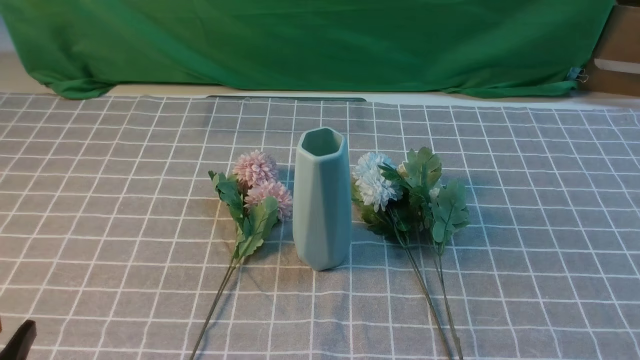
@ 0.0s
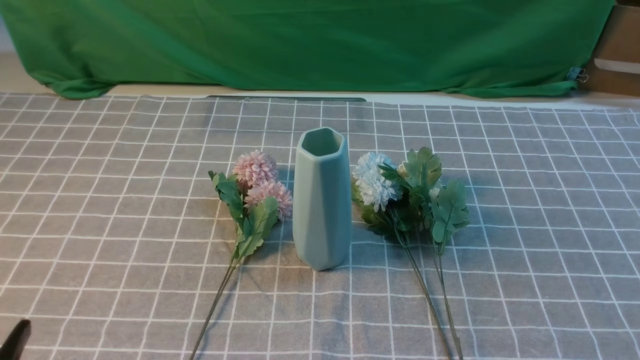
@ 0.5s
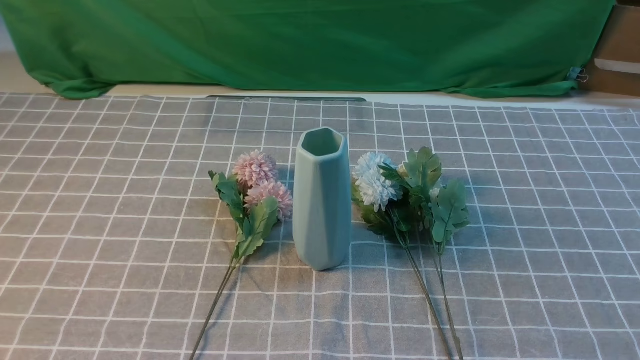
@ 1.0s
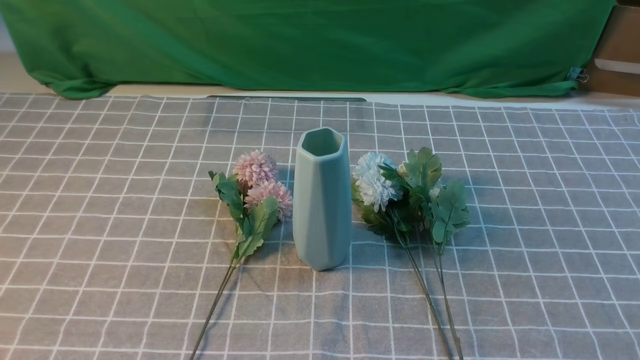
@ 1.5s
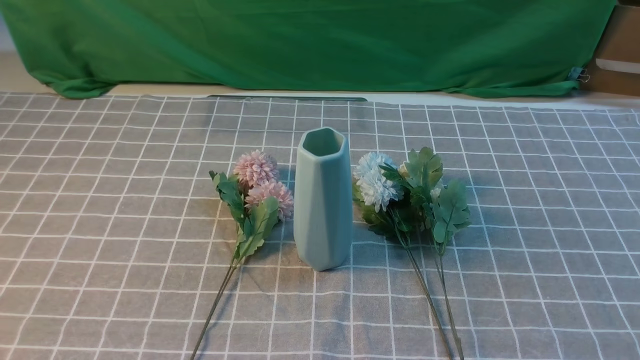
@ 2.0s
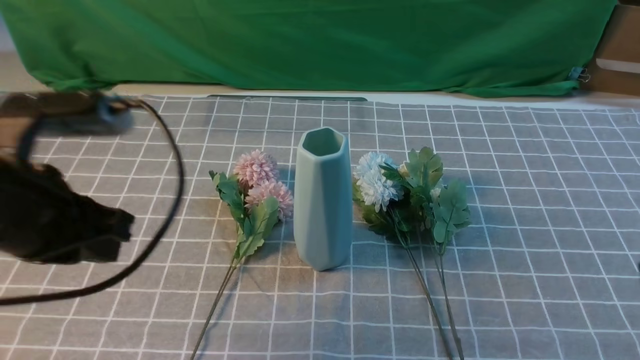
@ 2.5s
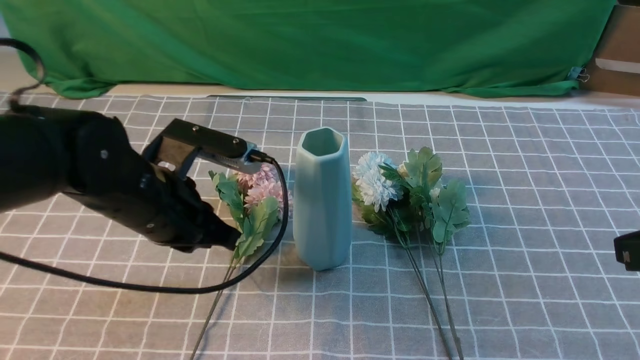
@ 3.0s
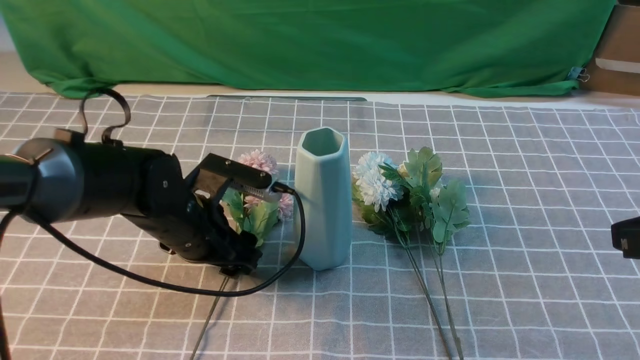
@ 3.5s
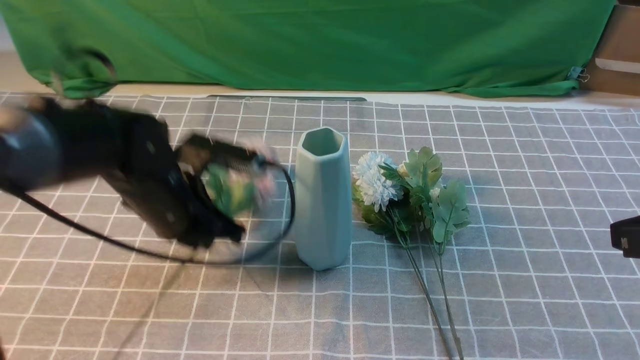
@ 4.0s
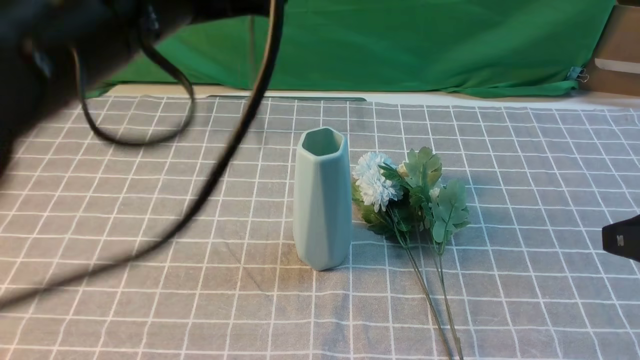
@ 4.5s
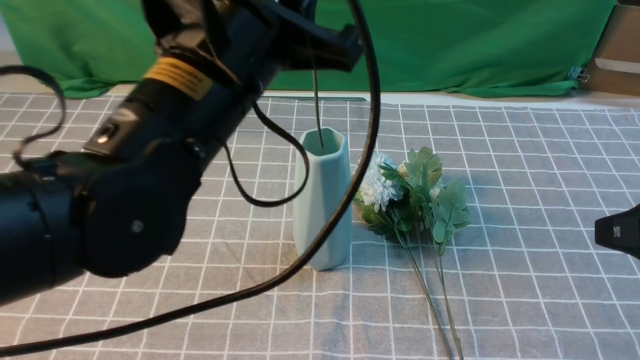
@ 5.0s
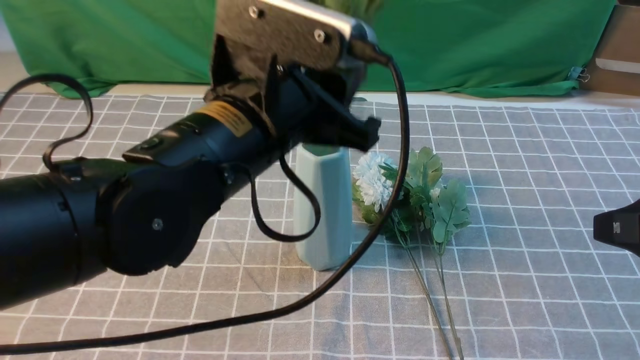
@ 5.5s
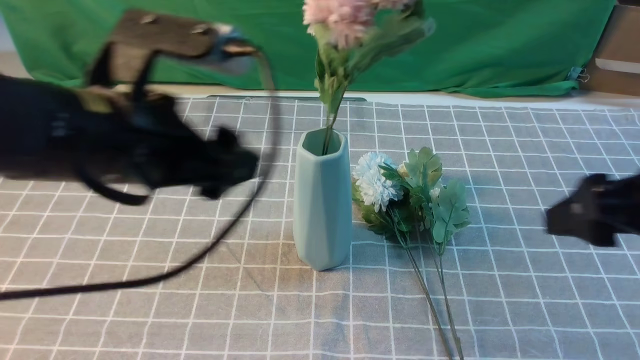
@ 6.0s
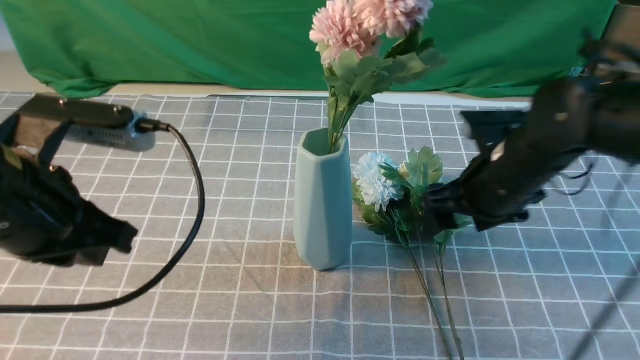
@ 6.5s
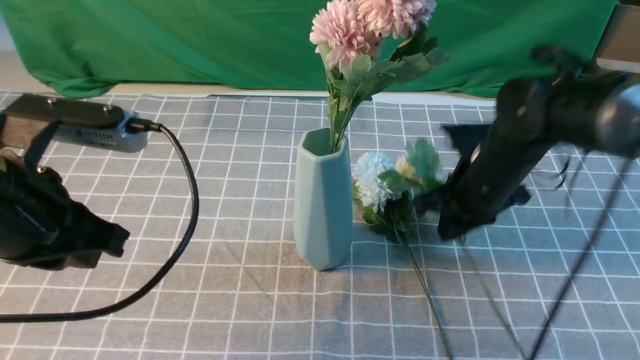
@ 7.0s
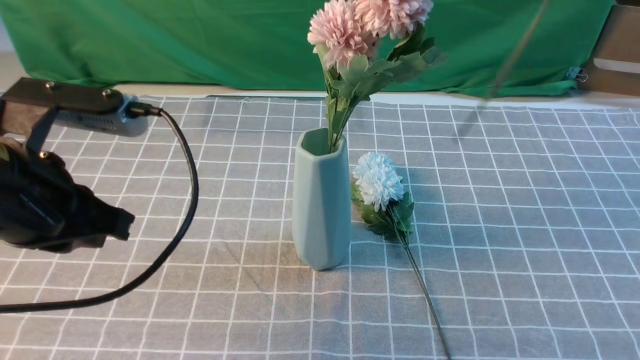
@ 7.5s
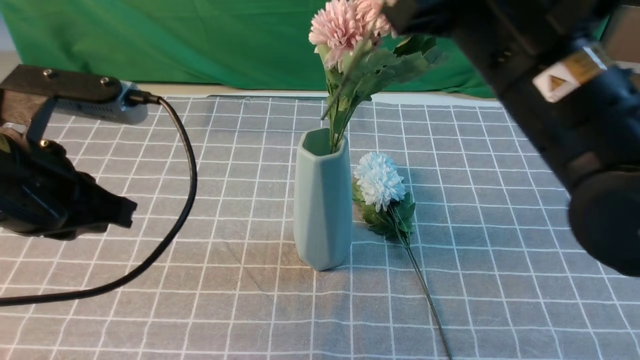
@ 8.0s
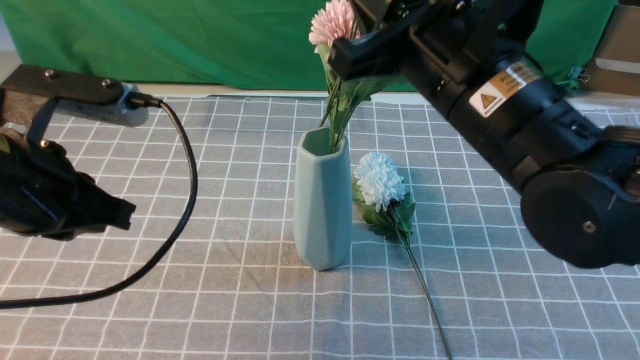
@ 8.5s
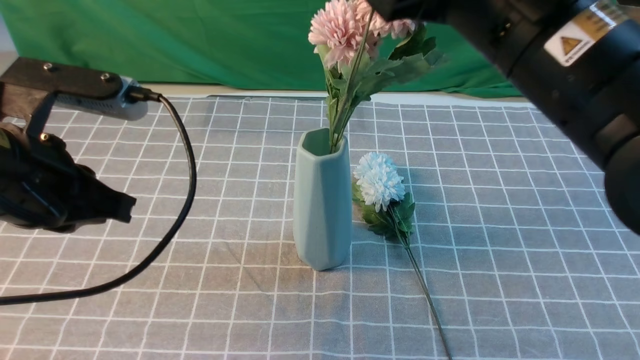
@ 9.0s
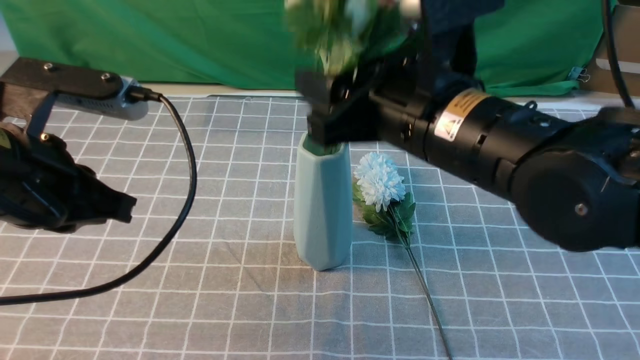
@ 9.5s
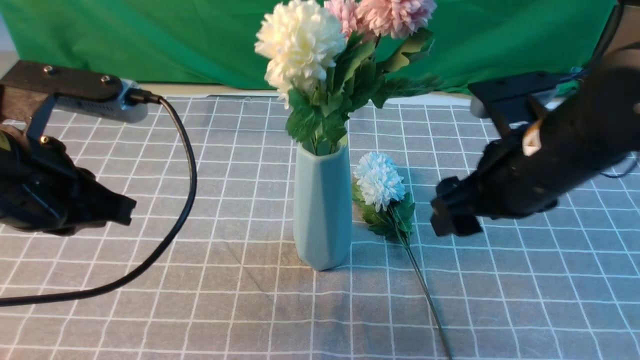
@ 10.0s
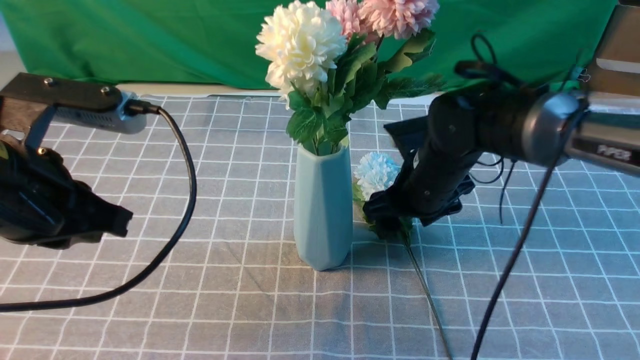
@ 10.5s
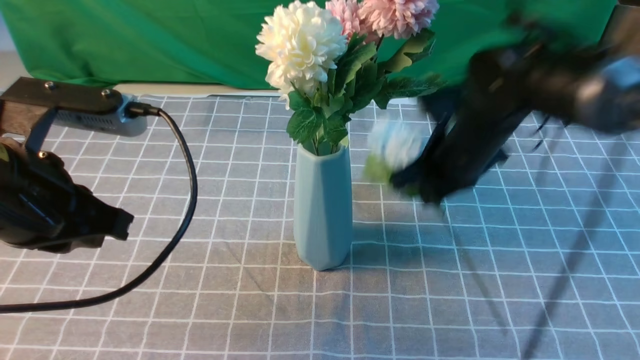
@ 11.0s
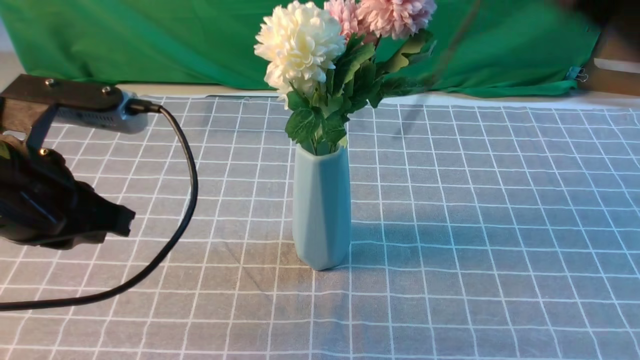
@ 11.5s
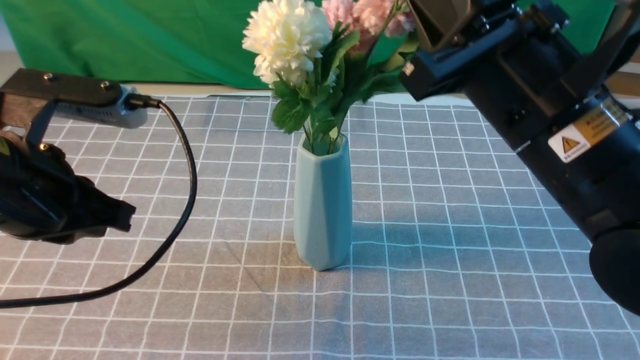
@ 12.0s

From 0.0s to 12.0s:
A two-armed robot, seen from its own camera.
Task of the whole recording: insert the flowers into the vase on the table with the grey tablecloth.
Step, from 0.0s to 3.5s: use the left arm to grab a bunch of fresh flowers.
Step, from 4.0s to 6.0s: use the left arm to insert the flowers into the vase.
Step, from 7.0s to 9.5s: use the right arm to insert the flowers into the vase.
Step, from 10.0s to 10.5s: use the right arm to grab a bunch of fresh flowers.
From 2.0s to 4.0s: The left gripper shifts approximately 30 cm forward and to the right, and opens and closes again, while the right gripper heads forward and upward, covering some 15 cm.
From 4.0s to 6.0s: The left gripper moves upward and backward, some 10 cm, and opens up. Meanwhile the right gripper heads forward, covering some 5 cm, and opens up.
From 6.0s to 8.0s: The left gripper moves to the left, about 5 cm, and closes; the right gripper goes up and down, roughly 20 cm each way, reversing 2 times, and closes up.
From 8.0s to 10.0s: The right gripper moves downward, approximately 10 cm, and opens.
From 10.0s to 12.0s: The right gripper swings up and down, about 25 cm each way, with 2 reversals, and closes.

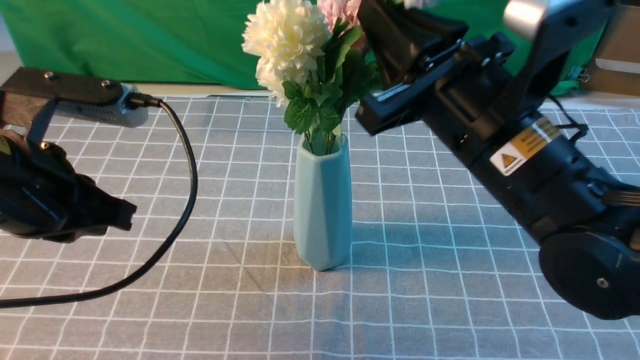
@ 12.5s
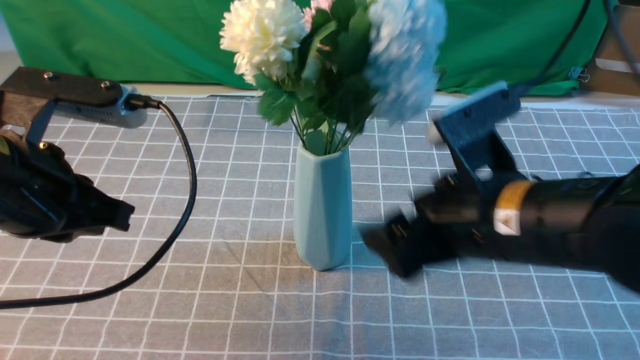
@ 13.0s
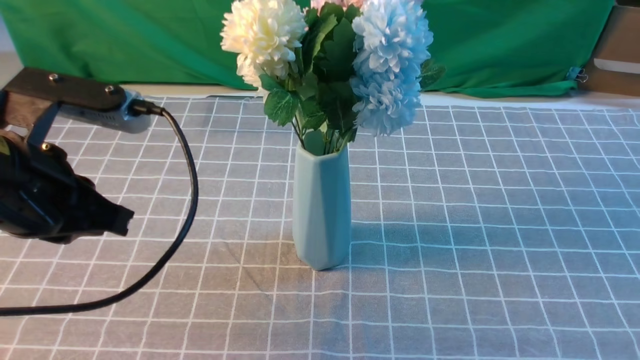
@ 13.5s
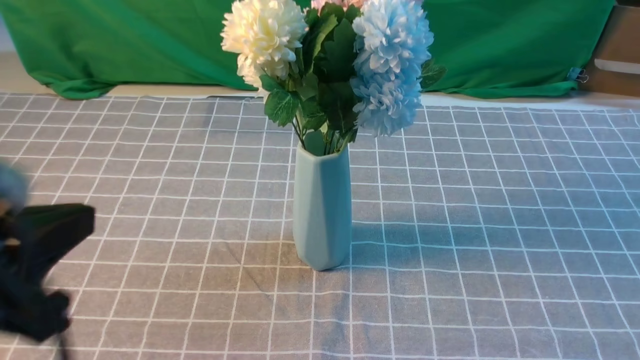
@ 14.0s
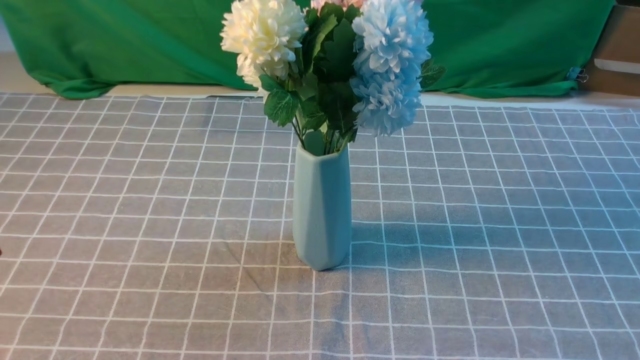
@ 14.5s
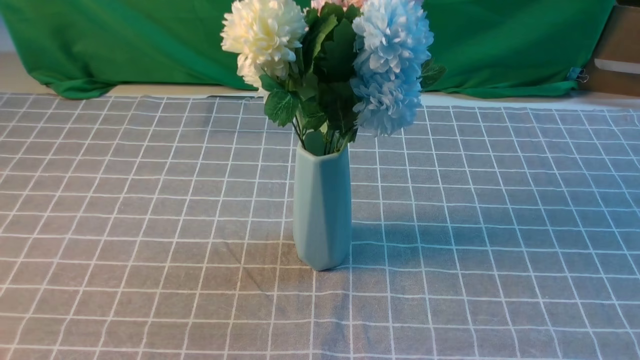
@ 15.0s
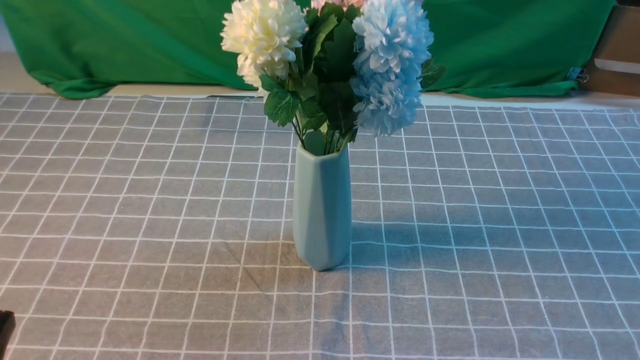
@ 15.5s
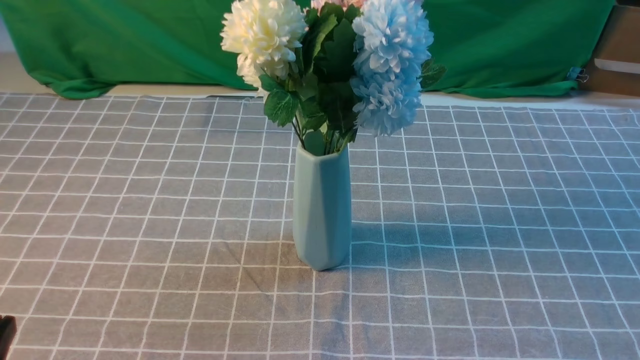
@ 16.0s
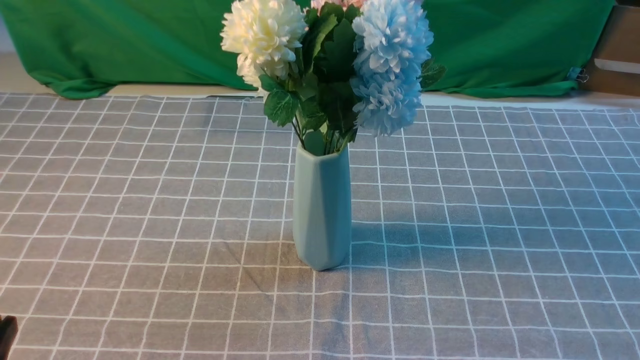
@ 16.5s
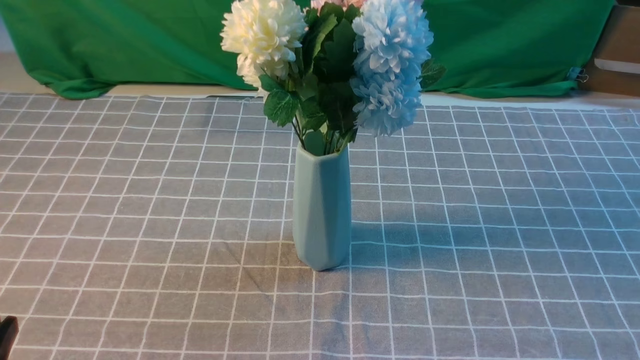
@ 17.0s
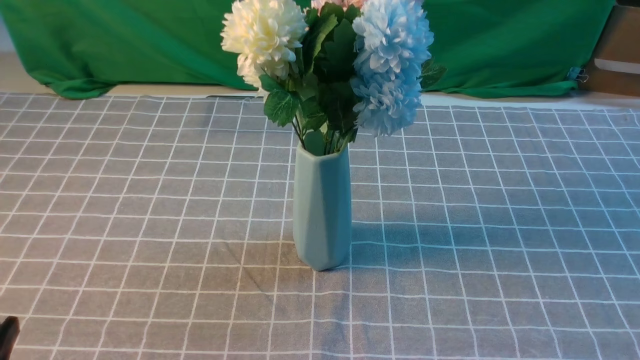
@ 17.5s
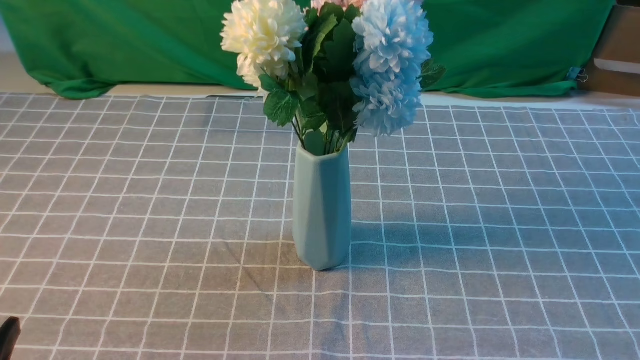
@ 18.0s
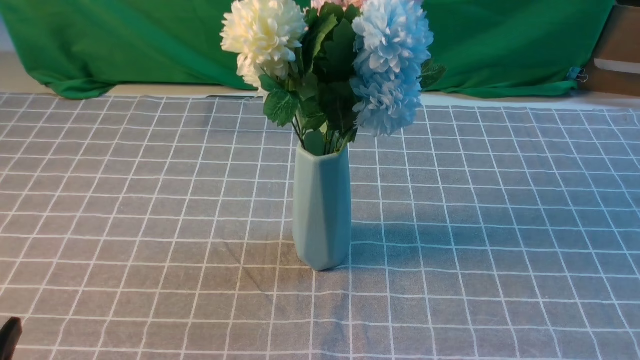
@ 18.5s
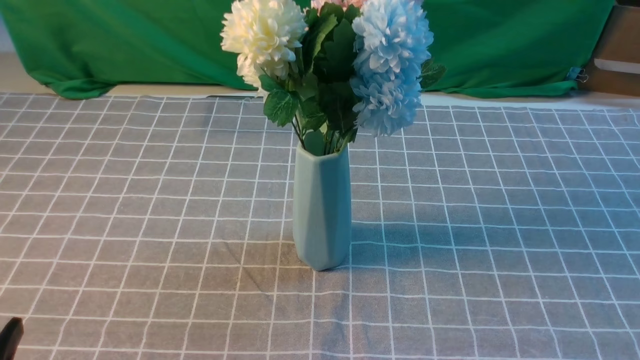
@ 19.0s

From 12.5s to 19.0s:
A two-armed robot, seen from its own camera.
Task of the whole recording: insert the flowers into the vase on the table with the grey tablecloth.
From 12.5s to 14.5s: The right gripper travels backward and to the right by some 30 cm, and opens and closes again. Meanwhile the left gripper heads backward, covering about 20 cm.
